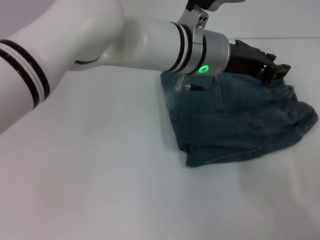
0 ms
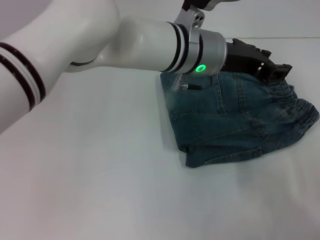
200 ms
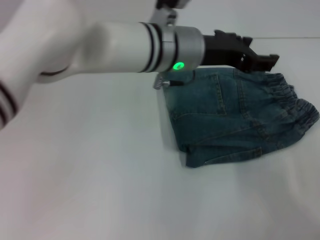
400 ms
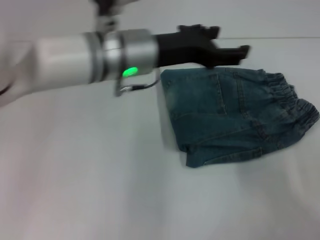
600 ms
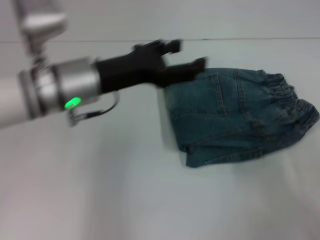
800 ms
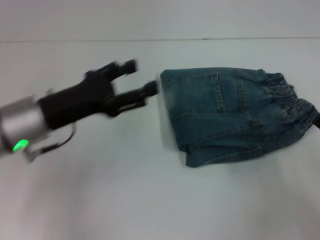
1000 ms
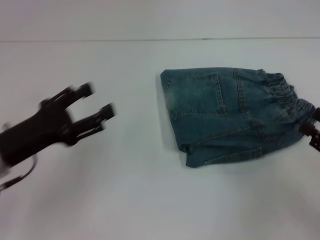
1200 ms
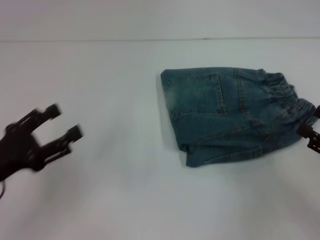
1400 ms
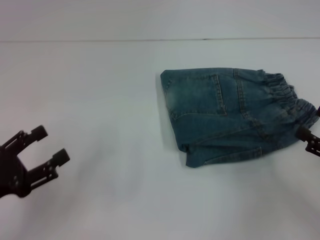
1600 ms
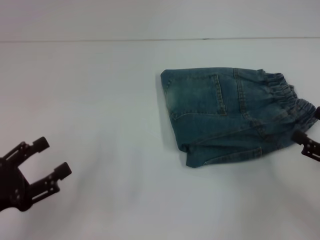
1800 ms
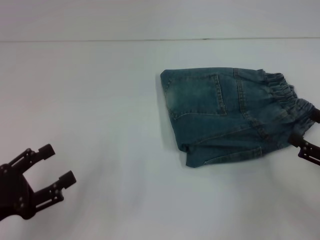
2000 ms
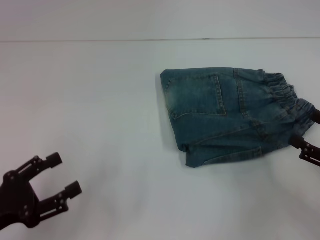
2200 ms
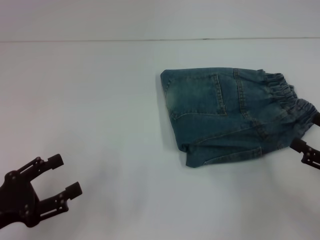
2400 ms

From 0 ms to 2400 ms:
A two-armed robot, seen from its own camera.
From 0 ms to 1200 ms: The left gripper heads to the left and backward, covering approximately 30 cm, and opens its fingers. The right gripper shifts approximately 5 cm forward, and opens its fingers.
From 1200 ms to 2400 ms: The right gripper opens. The left gripper shifts approximately 10 cm backward.
